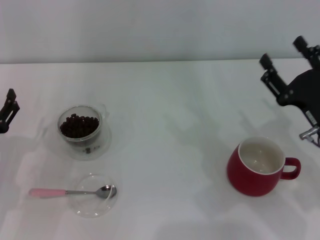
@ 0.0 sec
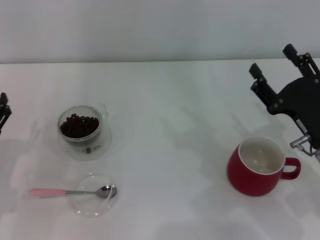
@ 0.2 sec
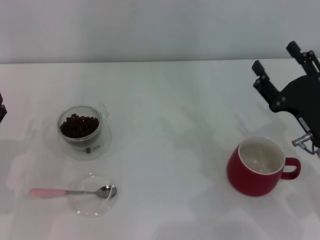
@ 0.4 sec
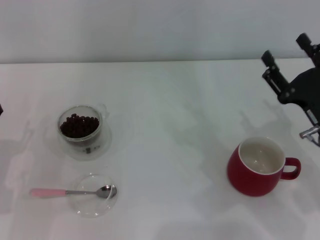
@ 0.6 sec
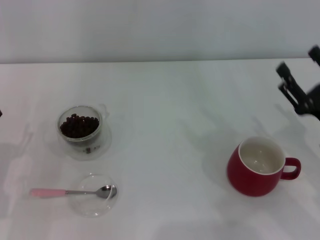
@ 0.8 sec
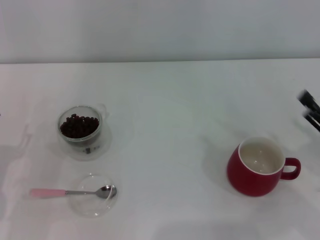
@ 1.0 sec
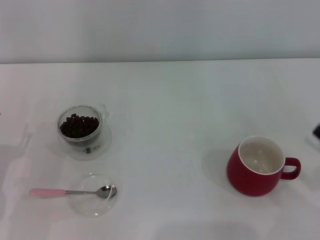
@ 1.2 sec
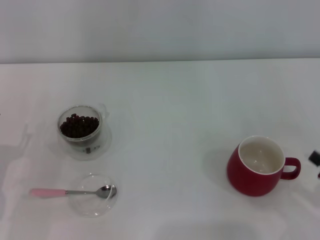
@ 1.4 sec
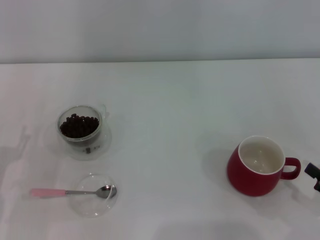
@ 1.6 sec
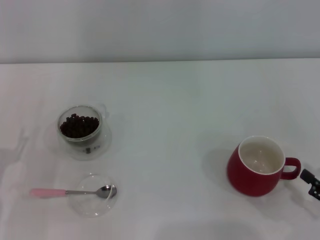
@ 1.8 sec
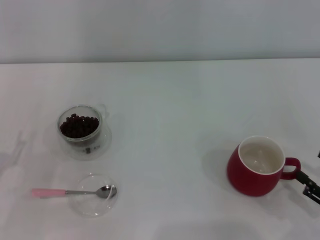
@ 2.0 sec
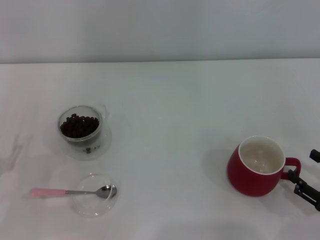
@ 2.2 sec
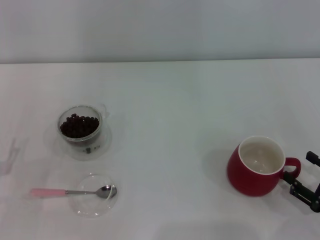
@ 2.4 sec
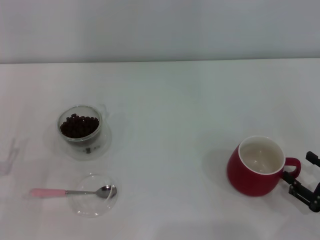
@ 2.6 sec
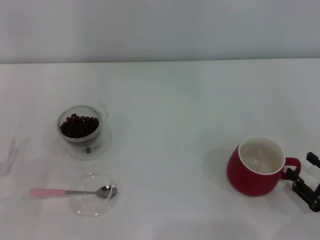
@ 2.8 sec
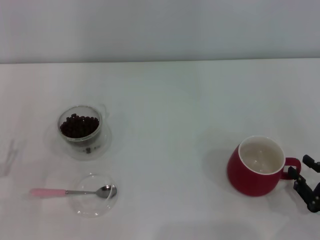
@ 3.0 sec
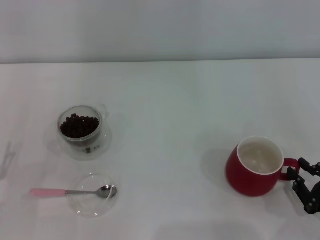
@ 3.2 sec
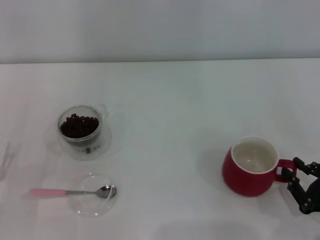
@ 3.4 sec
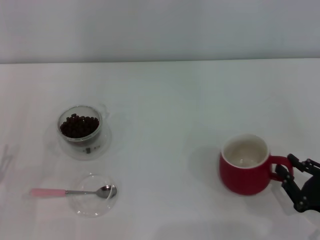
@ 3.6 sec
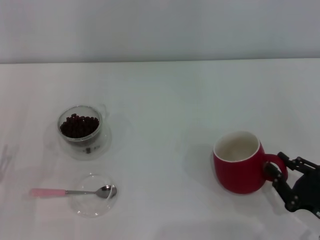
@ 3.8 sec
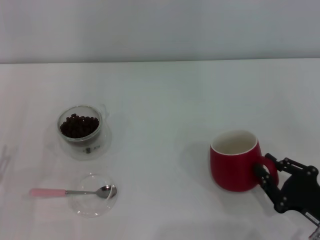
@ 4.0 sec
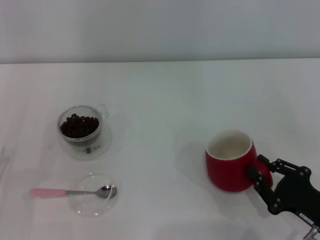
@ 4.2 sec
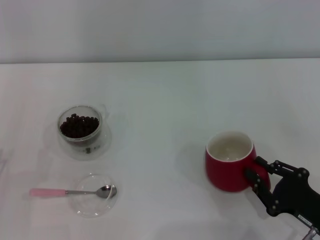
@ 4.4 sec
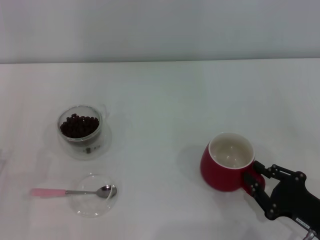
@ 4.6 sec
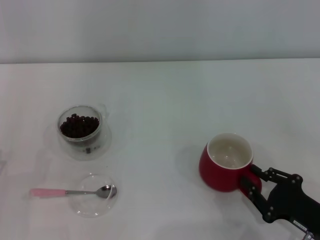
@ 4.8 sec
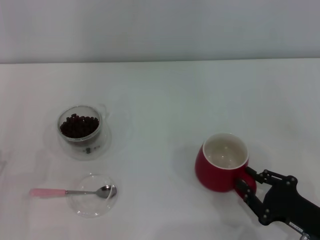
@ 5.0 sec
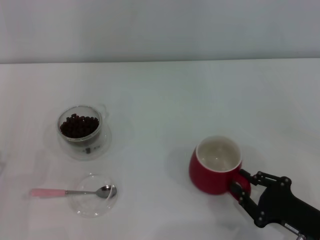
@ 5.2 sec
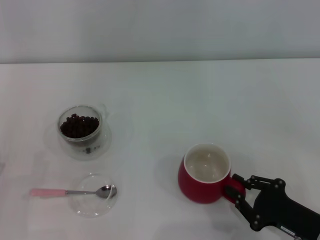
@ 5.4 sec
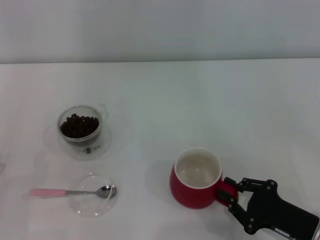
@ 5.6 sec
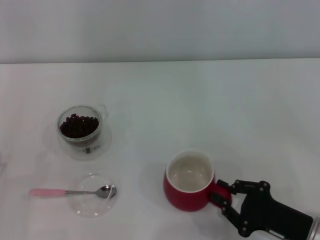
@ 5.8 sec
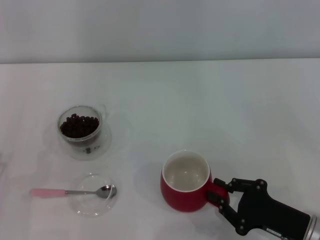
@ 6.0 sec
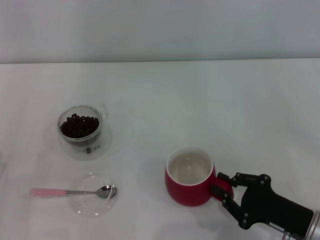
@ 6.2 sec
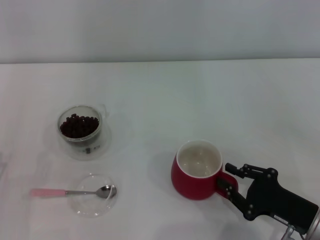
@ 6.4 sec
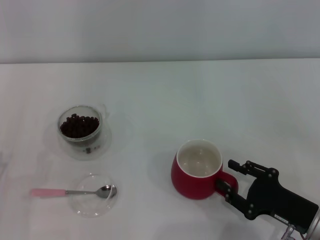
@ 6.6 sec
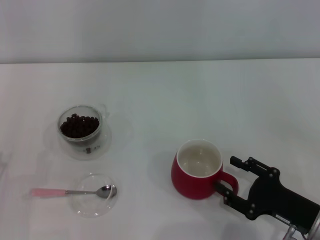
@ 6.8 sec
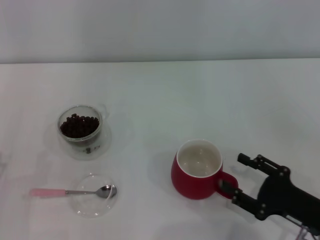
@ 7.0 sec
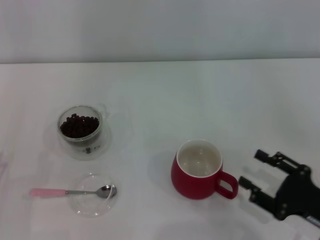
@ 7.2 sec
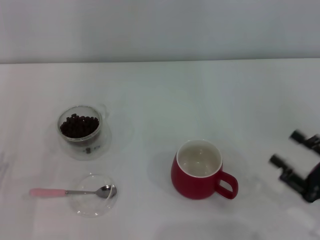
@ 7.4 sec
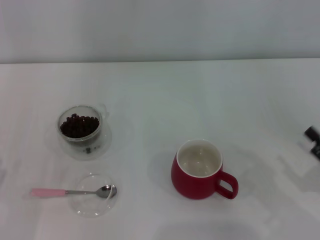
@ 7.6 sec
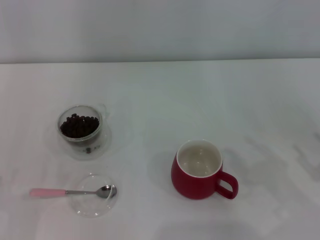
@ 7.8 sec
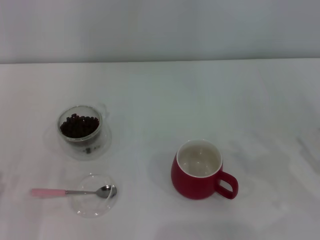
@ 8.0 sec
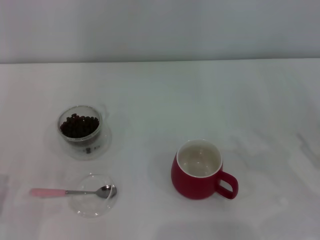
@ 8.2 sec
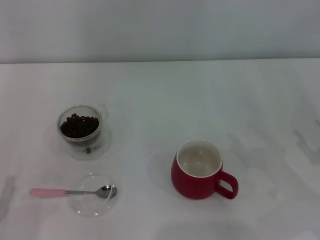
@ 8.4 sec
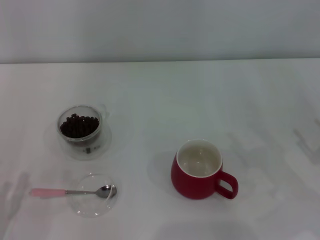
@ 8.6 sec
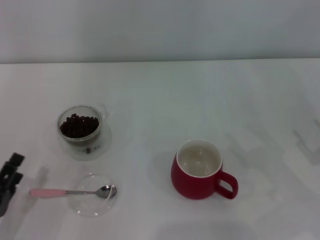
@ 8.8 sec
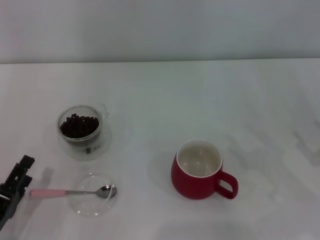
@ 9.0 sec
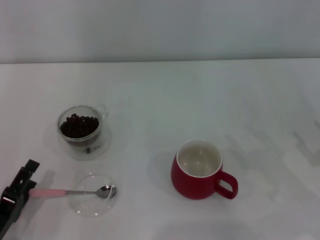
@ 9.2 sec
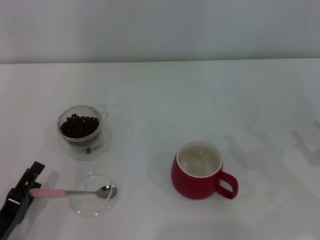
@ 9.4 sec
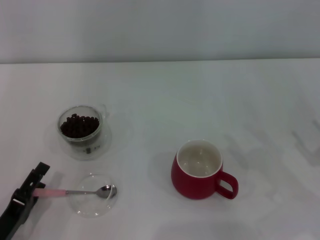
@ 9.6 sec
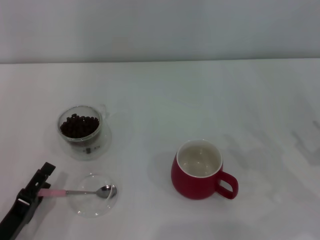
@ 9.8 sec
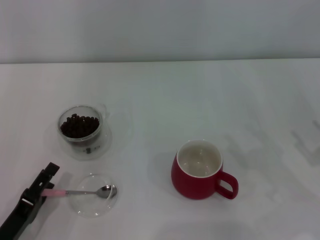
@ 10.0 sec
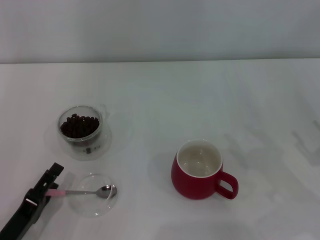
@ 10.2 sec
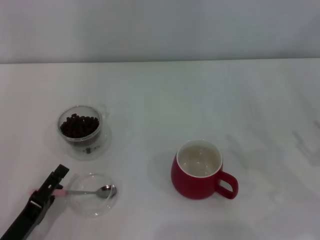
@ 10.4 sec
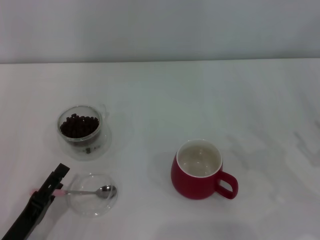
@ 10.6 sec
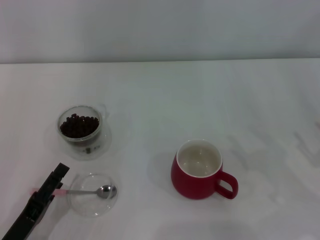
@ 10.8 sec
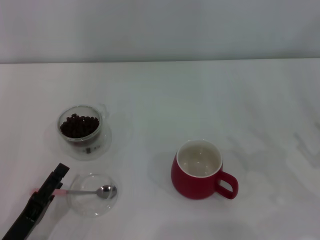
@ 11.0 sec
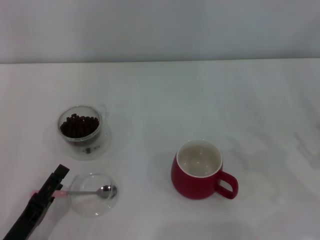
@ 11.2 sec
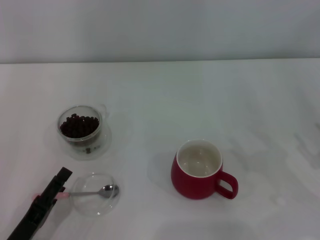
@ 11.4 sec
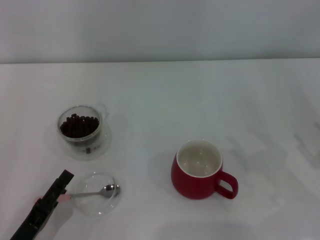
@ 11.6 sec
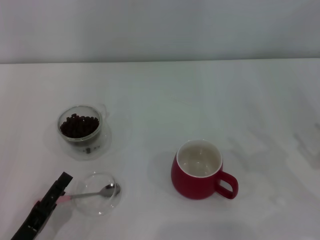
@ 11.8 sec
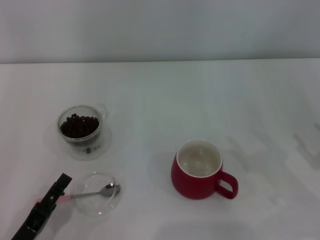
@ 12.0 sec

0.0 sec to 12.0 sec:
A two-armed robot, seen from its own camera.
Task of the whole recording: Use a pink spoon to take out the coffee beans from the glass and pour them into the red cup.
Step, 0.0 sec to 7.0 sec: Move the cup to the center of view with the left gripper.
0.0 sec to 1.6 sec: The right gripper is displaced backward and to the right by about 15 cm.
1.6 sec to 3.0 sec: The right gripper changes place by roughly 5 cm.
3.0 sec to 4.4 sec: The right gripper heads to the left, covering approximately 5 cm, and closes its fingers.
4.4 sec to 6.0 sec: The grippers move only a little.
6.0 sec to 7.6 sec: The right gripper goes roughly 10 cm to the right, and opens.
7.6 sec to 9.0 sec: The left gripper shifts by approximately 5 cm.
9.0 sec to 12.0 sec: The grippers make only small movements.

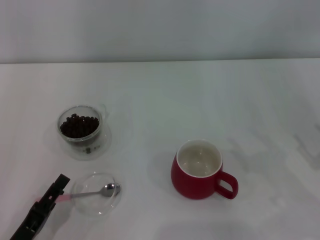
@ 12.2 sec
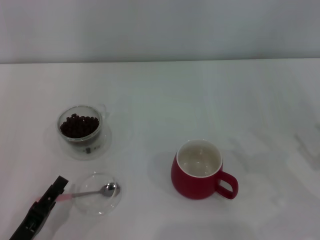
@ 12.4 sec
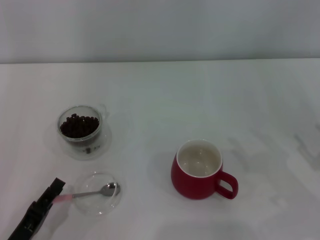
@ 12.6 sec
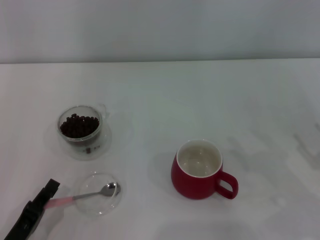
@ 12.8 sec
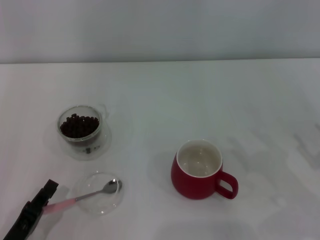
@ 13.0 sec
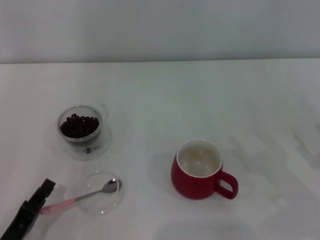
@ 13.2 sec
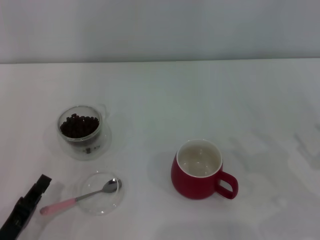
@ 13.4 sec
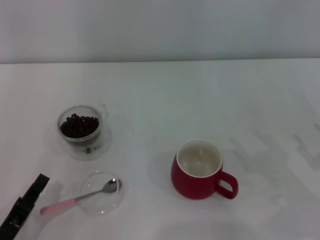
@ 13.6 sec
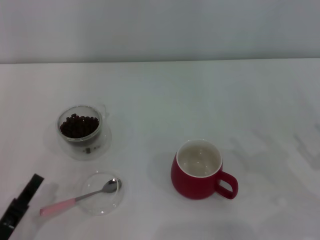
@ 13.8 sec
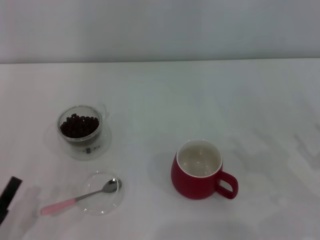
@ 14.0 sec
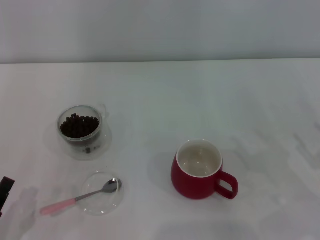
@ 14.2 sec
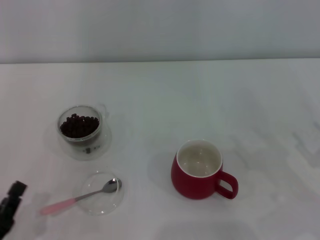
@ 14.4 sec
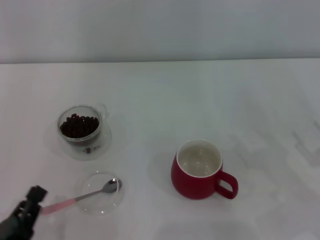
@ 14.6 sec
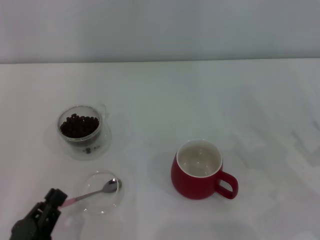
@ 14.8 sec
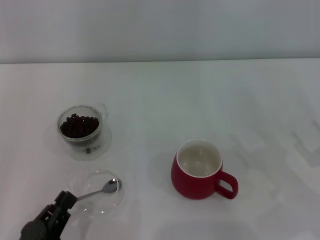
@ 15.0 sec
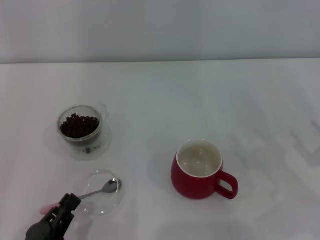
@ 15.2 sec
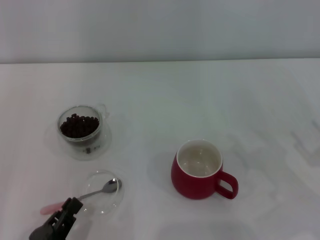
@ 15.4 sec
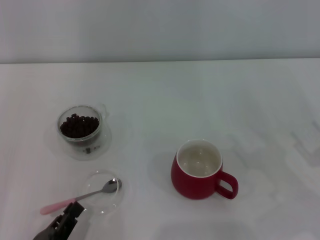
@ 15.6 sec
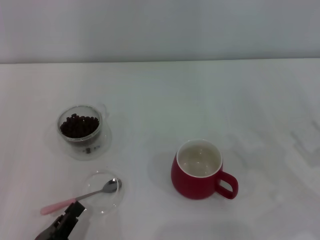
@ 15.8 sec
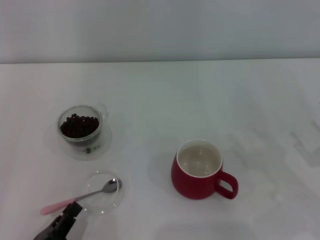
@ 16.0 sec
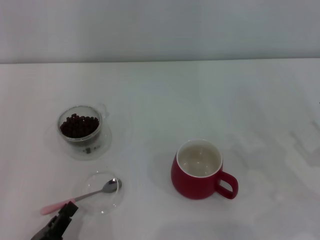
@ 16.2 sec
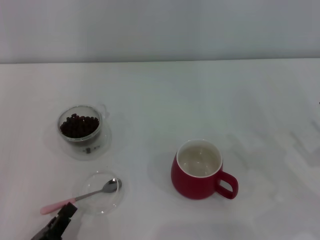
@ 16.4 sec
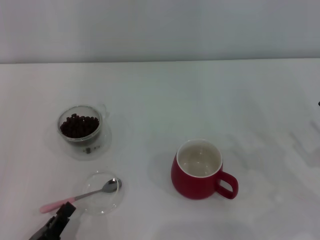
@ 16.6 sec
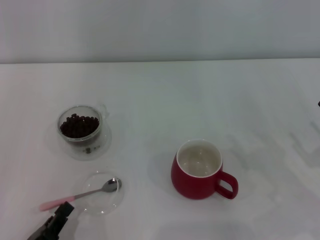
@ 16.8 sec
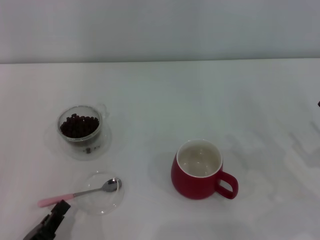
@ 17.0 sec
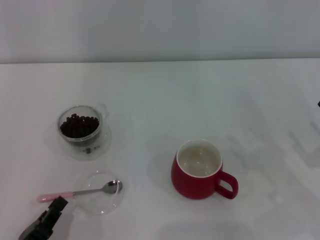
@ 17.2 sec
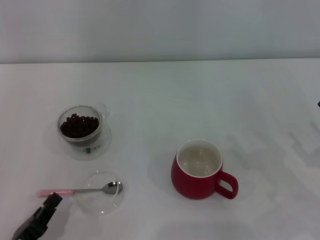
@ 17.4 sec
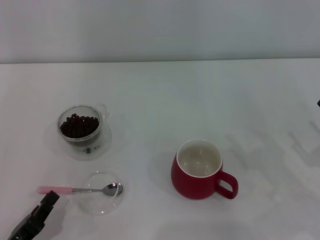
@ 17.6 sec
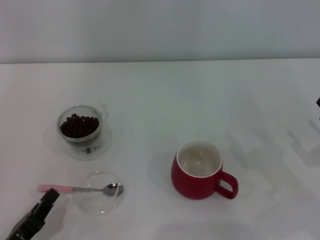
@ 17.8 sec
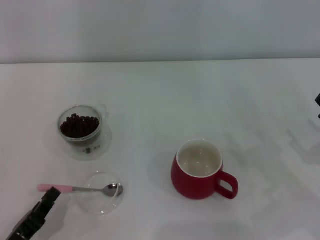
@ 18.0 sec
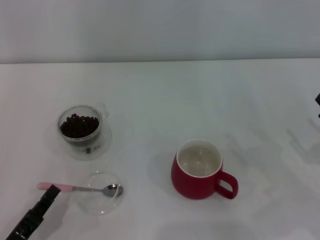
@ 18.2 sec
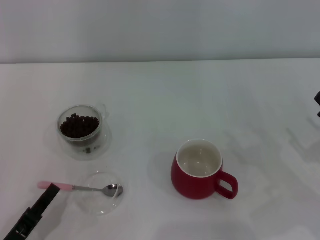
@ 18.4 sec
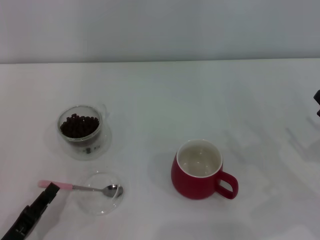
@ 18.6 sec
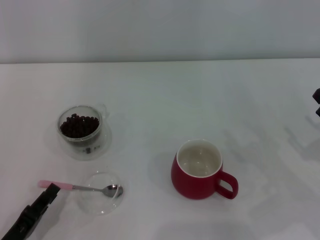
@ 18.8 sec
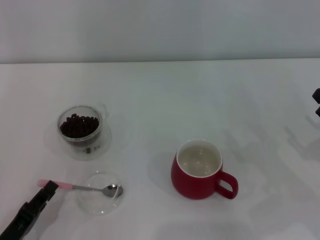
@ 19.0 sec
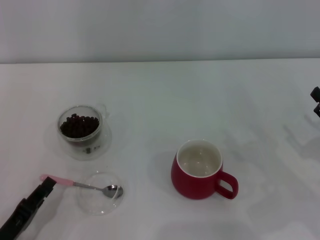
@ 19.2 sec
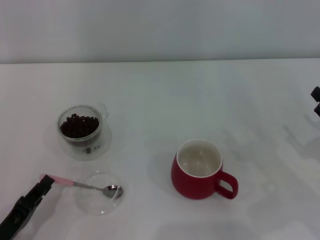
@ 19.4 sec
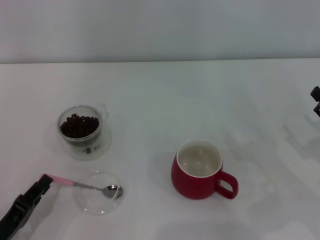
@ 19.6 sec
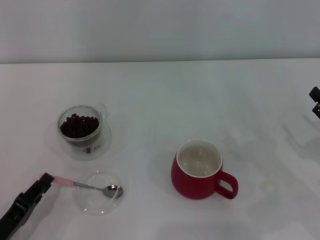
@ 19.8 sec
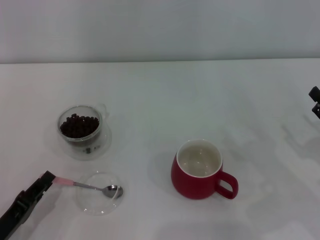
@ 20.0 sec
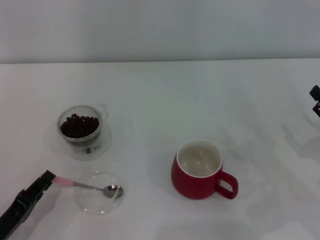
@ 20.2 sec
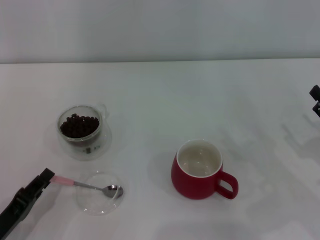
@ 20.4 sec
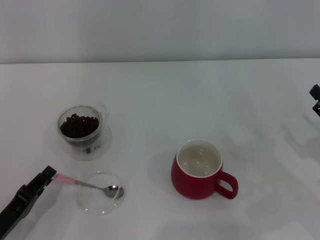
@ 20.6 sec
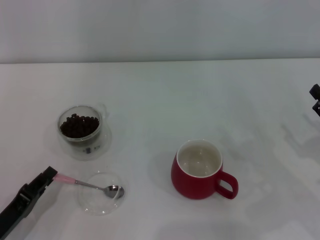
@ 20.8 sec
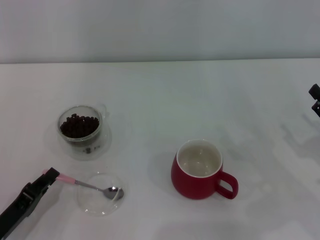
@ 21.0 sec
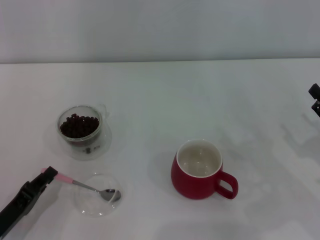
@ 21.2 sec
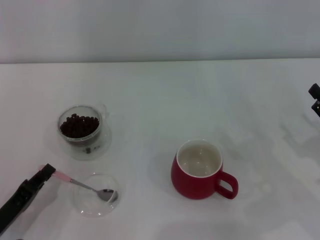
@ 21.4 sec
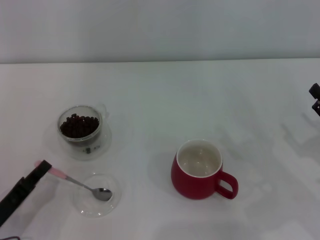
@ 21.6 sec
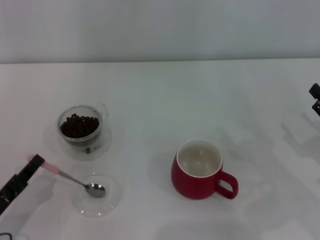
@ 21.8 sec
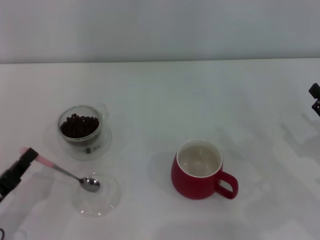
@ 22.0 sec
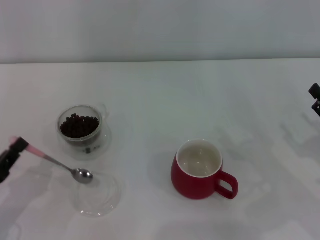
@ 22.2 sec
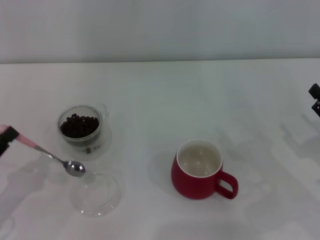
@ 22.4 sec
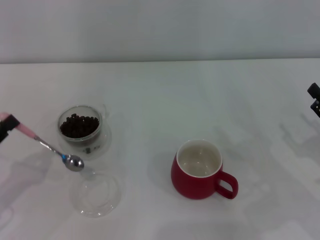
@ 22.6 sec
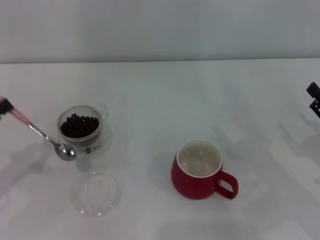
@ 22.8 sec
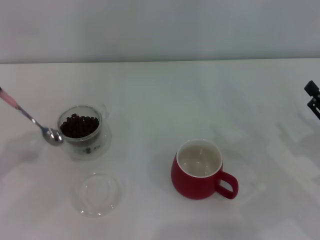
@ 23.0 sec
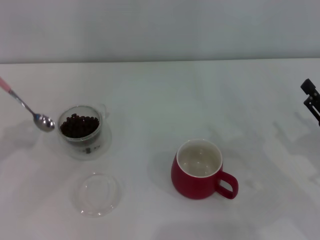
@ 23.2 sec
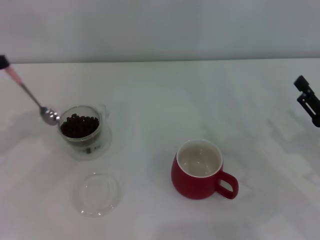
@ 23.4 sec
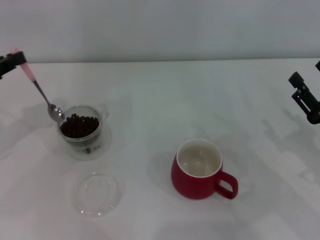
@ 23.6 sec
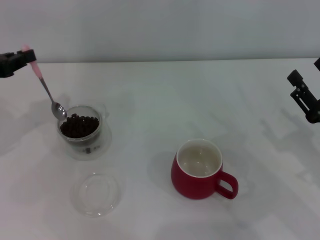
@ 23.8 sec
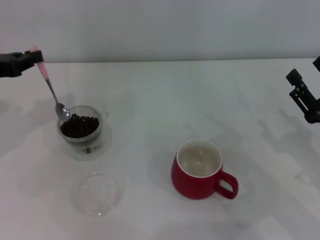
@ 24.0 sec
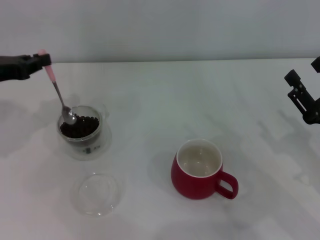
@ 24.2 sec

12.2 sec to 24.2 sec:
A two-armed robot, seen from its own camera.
Task of the whole recording: Use a pink spoon to take out the coffee beans from the glass and pour them into the red cup.
12.2 sec to 13.8 sec: The left gripper closes its fingers.
15.2 sec to 18.2 sec: The grippers stay close to where they were, moving slightly.
18.2 sec to 21.2 sec: There are only small adjustments of the grippers.
21.2 sec to 22.6 sec: The left gripper heads upward and to the left, covering approximately 10 cm.
22.6 sec to 24.2 sec: The left gripper shifts about 20 cm forward and upward.